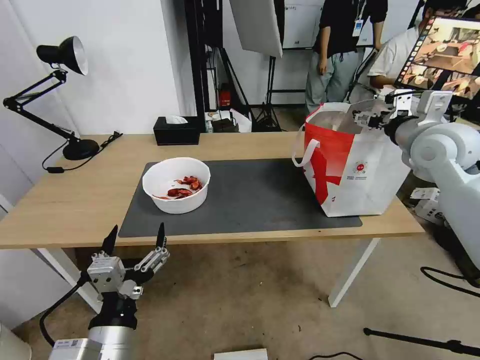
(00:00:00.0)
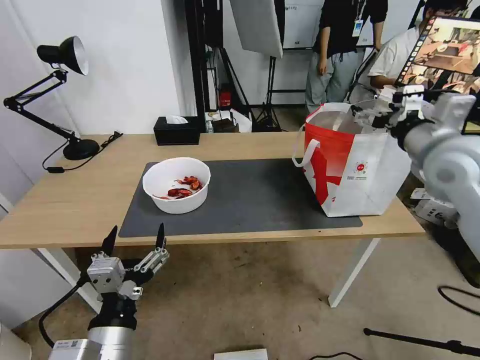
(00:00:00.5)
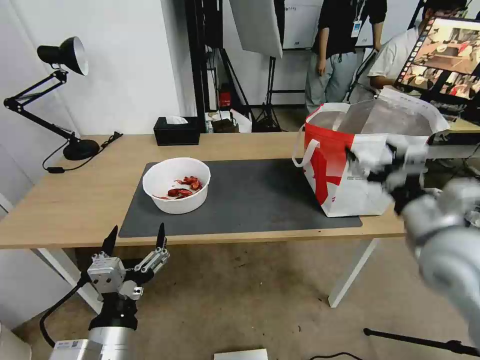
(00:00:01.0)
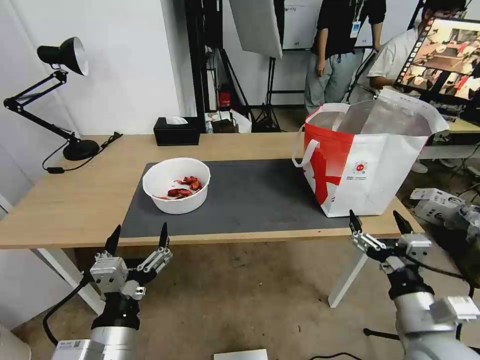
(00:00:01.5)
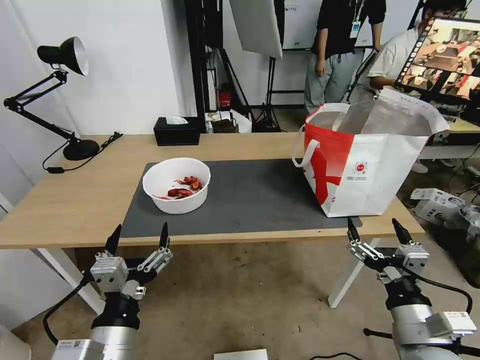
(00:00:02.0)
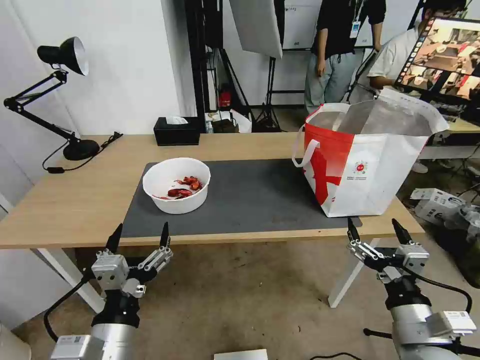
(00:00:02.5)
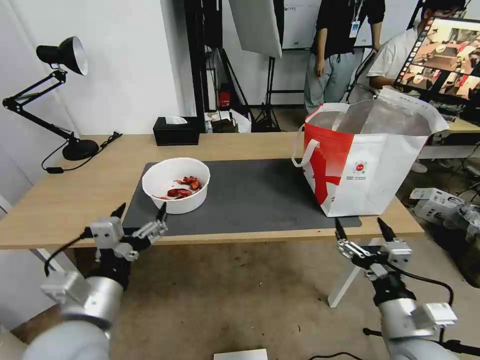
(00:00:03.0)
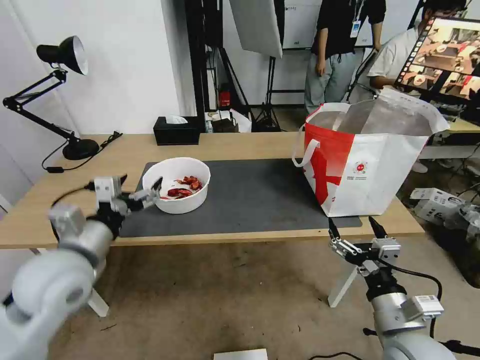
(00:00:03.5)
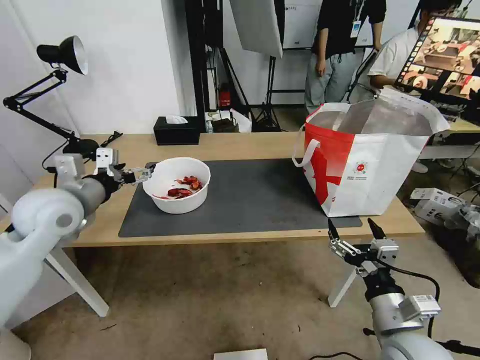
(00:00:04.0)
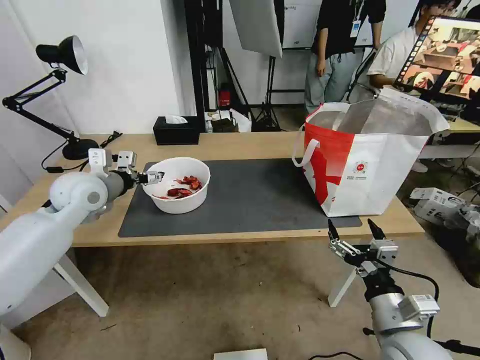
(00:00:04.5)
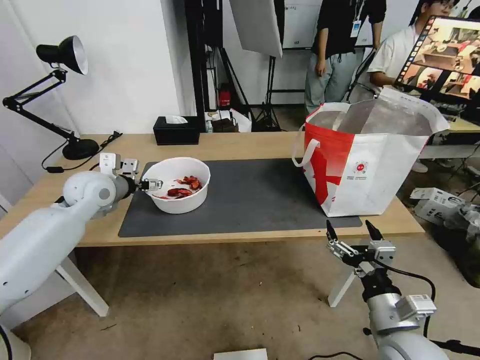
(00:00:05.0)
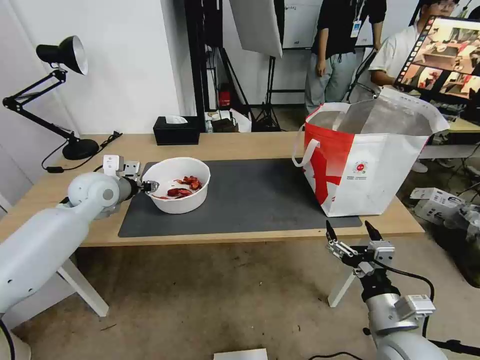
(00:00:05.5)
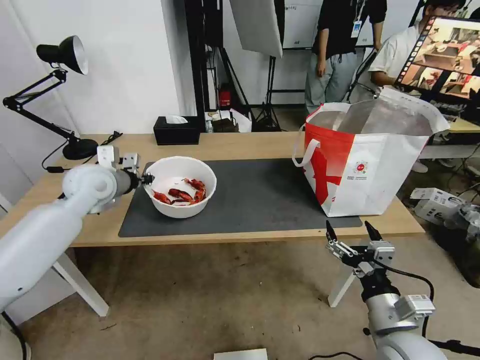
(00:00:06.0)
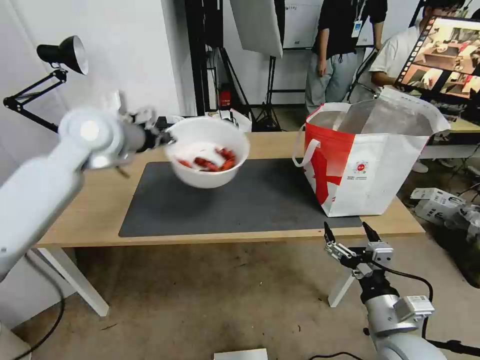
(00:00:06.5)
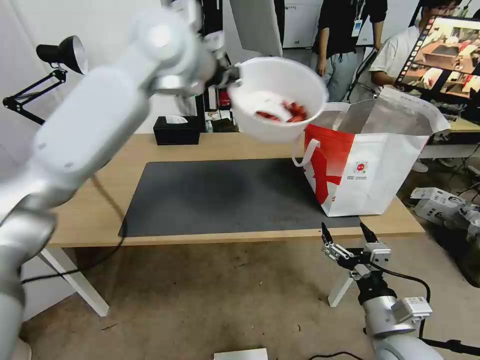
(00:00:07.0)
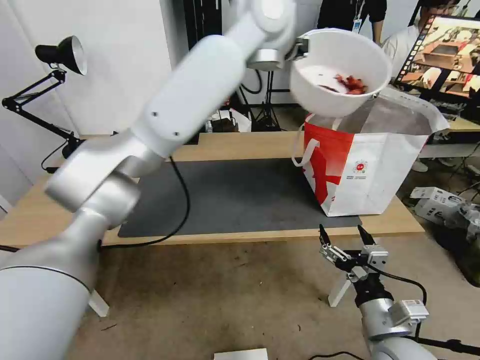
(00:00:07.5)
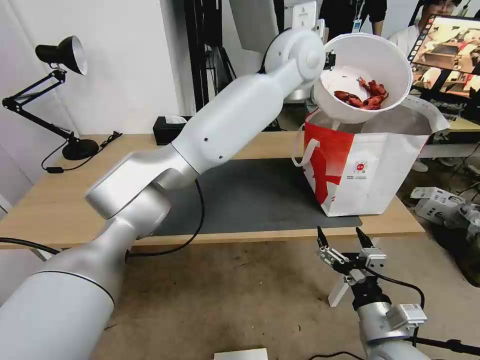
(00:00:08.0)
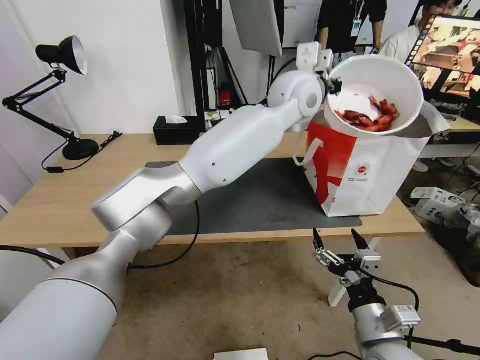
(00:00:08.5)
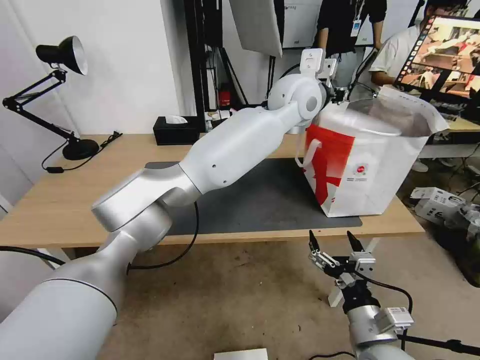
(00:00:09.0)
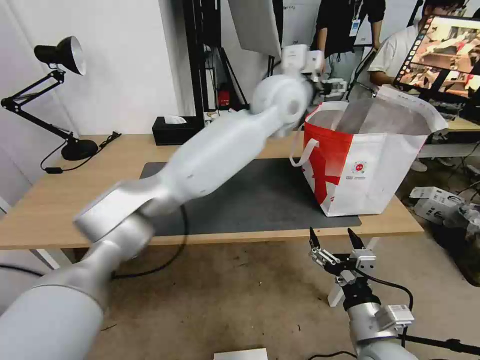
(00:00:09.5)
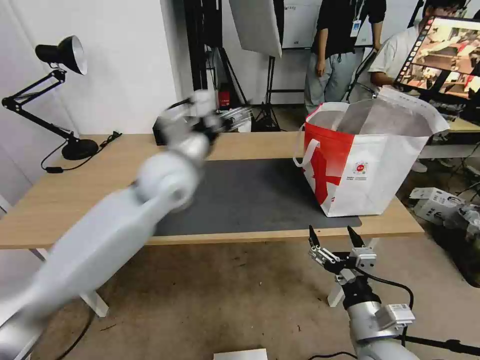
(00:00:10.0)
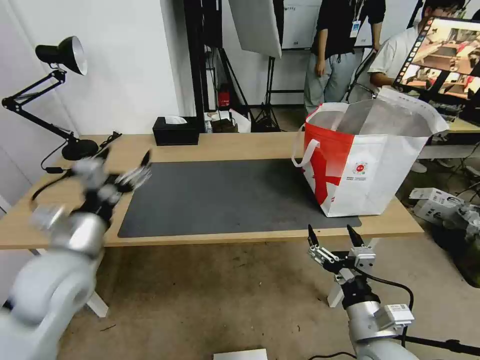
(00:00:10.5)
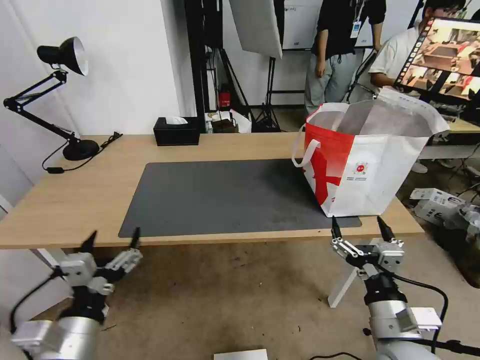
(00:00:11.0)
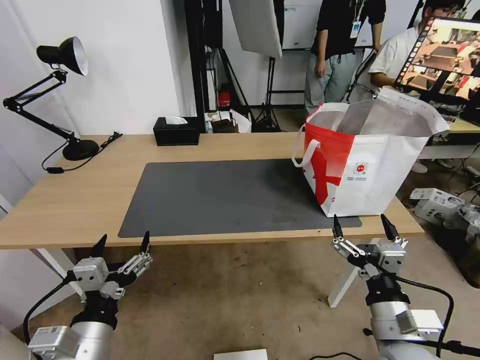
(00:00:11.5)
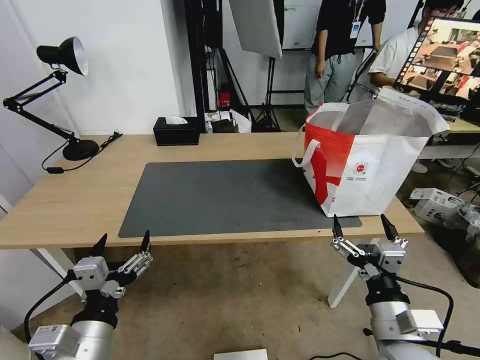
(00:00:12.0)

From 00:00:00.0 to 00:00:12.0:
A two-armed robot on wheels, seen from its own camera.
Task of the whole recording: Pick up the trash from the table and place it into the takeout bag.
From 00:00:00.0 to 00:00:02.0: The right gripper heads backward and downward, covering roughly 40 cm.
From 00:00:02.0 to 00:00:04.0: The left gripper travels forward, to the left and upward by roughly 30 cm.
From 00:00:04.0 to 00:00:06.0: The left gripper moves forward, some 10 cm, and closes its fingers.
From 00:00:06.0 to 00:00:08.0: The left gripper shifts some 50 cm to the right and upward.
From 00:00:08.0 to 00:00:10.0: The left gripper heads to the left, downward and backward, covering about 30 cm, and opens up.
From 00:00:10.0 to 00:00:12.0: The left gripper moves backward and downward, approximately 30 cm.
